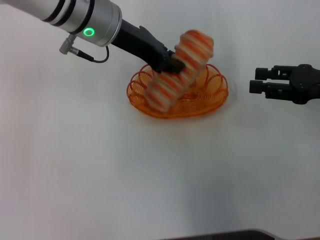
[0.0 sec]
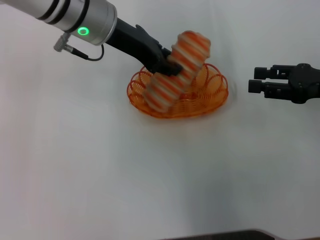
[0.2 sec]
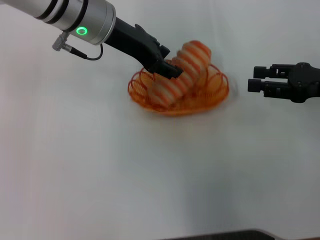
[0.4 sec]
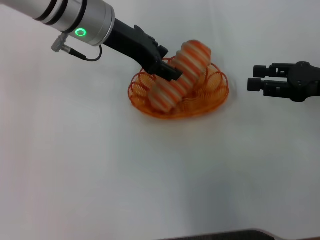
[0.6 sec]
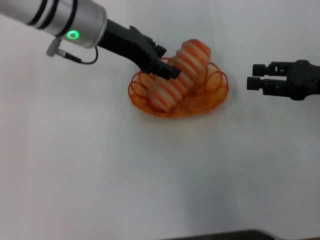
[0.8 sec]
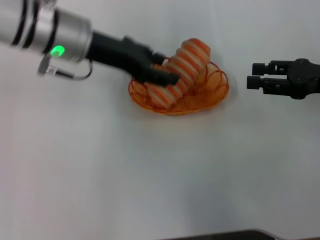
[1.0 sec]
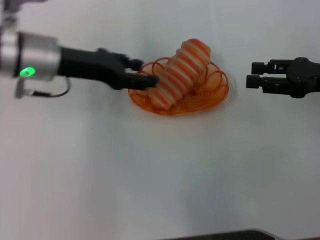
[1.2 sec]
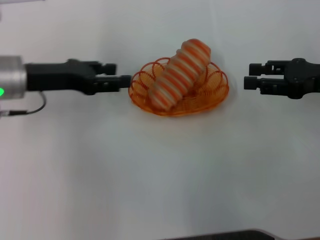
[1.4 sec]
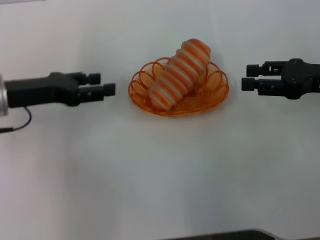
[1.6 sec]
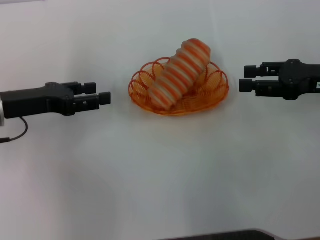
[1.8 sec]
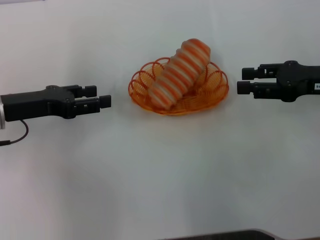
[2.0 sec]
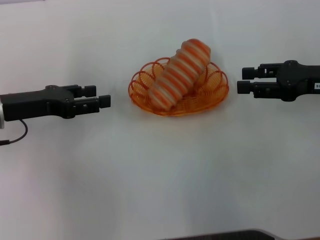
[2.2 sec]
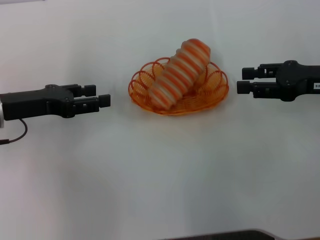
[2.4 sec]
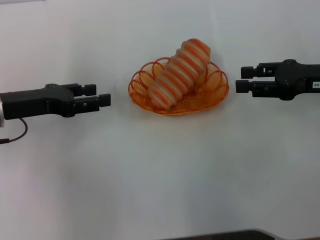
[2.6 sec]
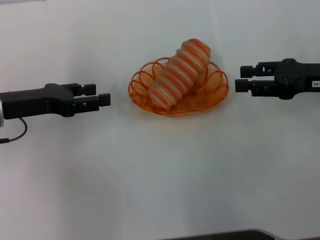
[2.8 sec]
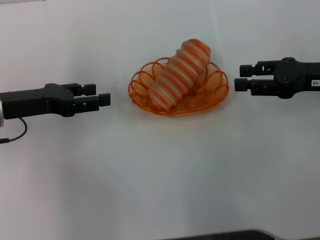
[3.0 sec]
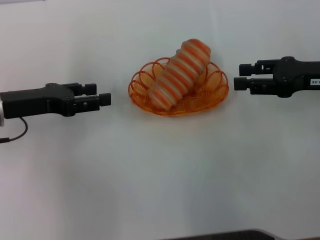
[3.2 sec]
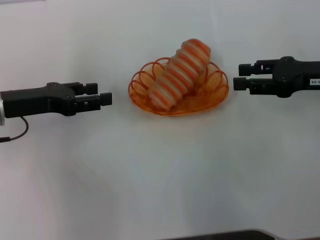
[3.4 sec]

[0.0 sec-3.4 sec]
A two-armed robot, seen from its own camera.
Step, 0.0 sec to 1.2 sec: Place the long bread into the basket with the left gripper.
0.0 sec to 1.6 sec: The left gripper goes approximately 20 cm to the left, downward and backward, and opens its fingers.
1.6 sec to 3.4 sec: There are only small adjustments of the grippers.
